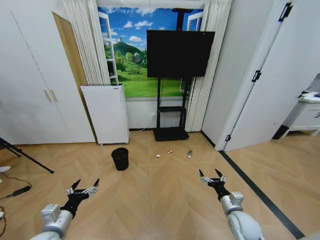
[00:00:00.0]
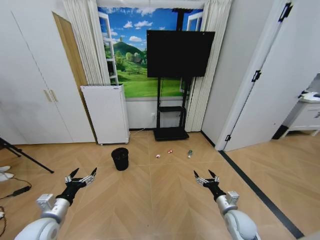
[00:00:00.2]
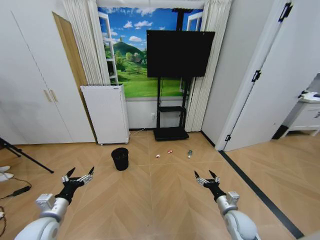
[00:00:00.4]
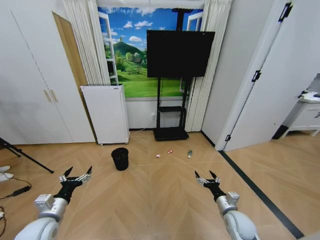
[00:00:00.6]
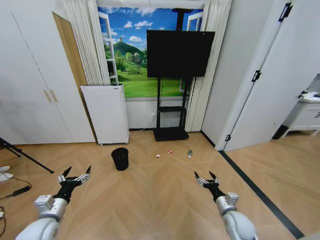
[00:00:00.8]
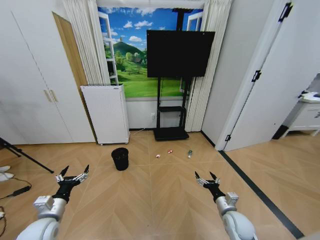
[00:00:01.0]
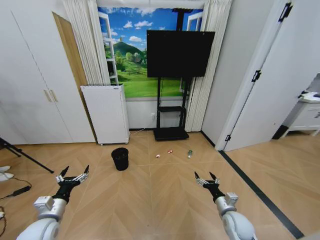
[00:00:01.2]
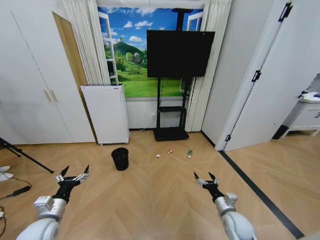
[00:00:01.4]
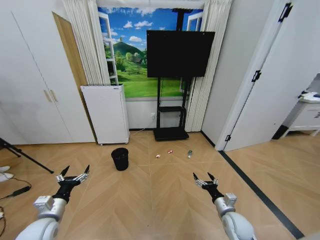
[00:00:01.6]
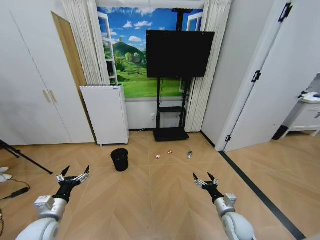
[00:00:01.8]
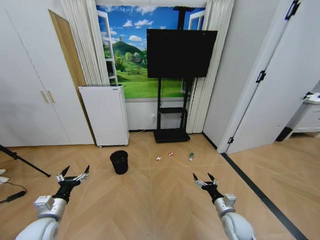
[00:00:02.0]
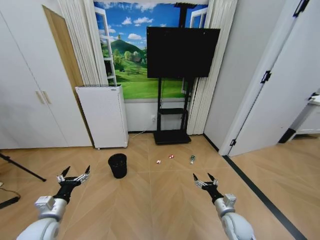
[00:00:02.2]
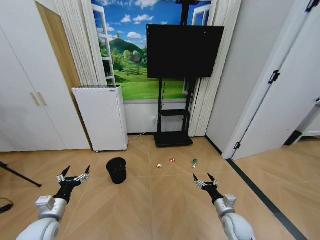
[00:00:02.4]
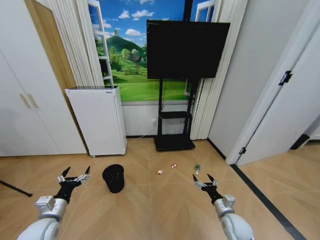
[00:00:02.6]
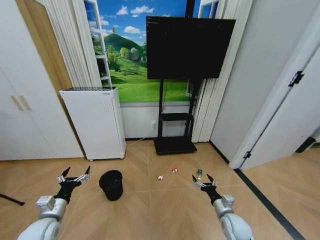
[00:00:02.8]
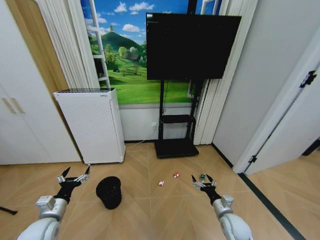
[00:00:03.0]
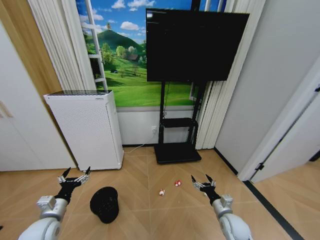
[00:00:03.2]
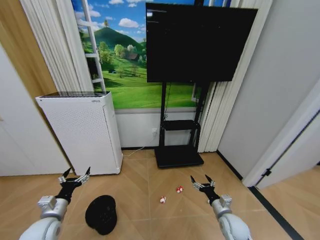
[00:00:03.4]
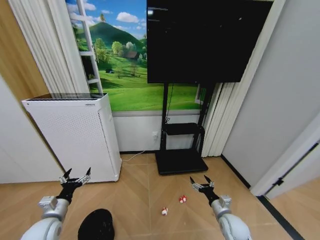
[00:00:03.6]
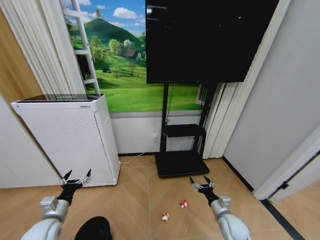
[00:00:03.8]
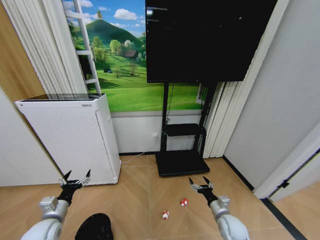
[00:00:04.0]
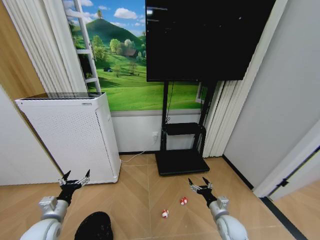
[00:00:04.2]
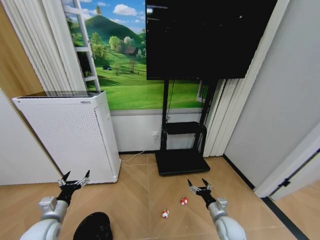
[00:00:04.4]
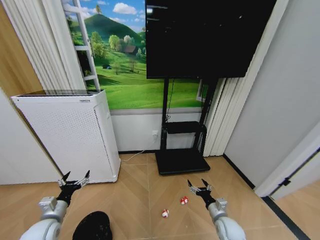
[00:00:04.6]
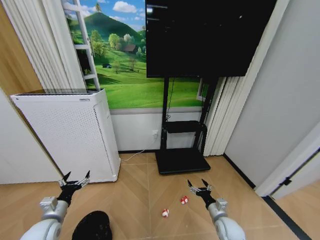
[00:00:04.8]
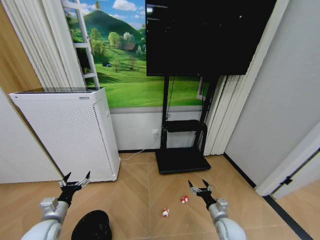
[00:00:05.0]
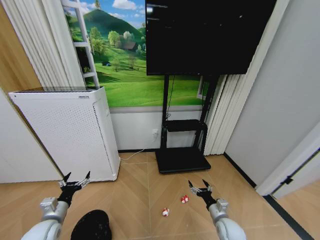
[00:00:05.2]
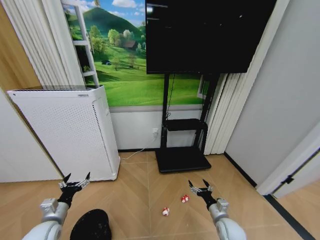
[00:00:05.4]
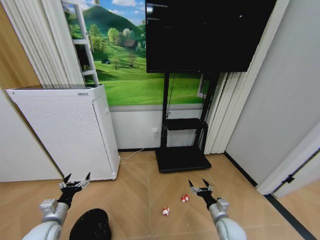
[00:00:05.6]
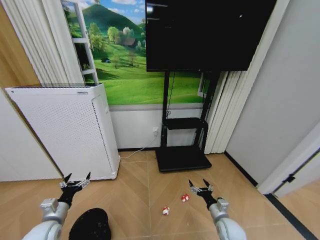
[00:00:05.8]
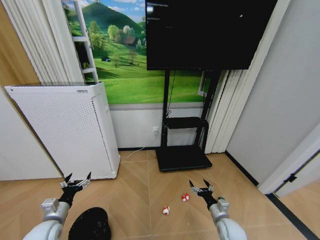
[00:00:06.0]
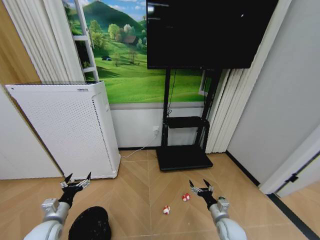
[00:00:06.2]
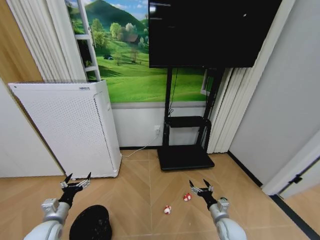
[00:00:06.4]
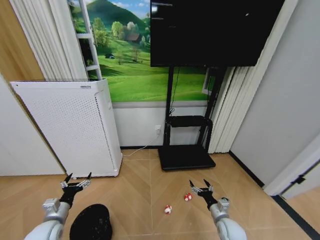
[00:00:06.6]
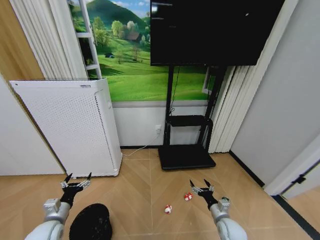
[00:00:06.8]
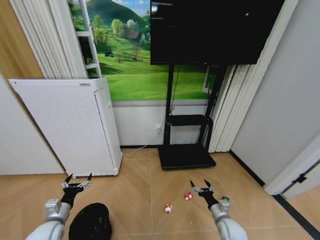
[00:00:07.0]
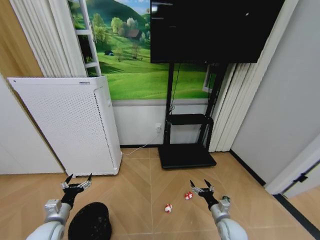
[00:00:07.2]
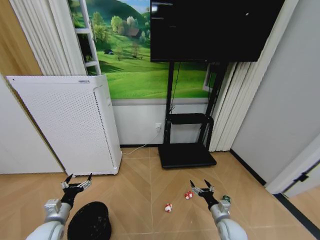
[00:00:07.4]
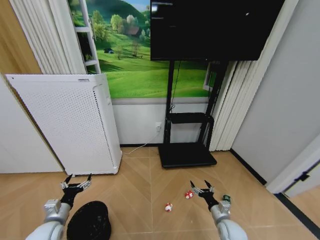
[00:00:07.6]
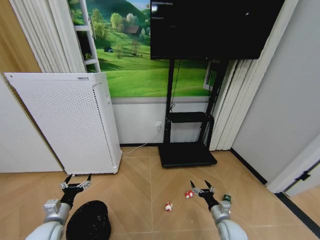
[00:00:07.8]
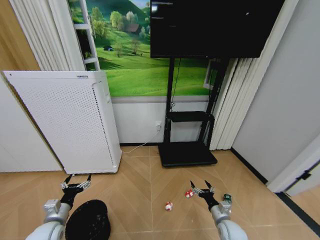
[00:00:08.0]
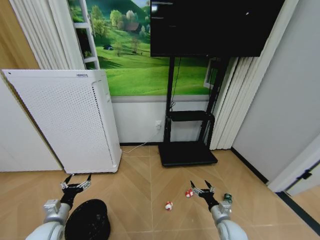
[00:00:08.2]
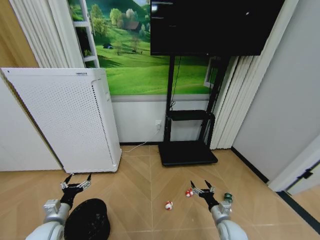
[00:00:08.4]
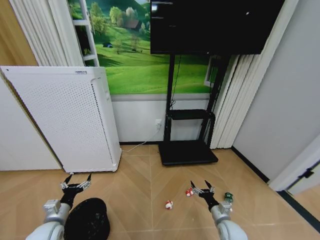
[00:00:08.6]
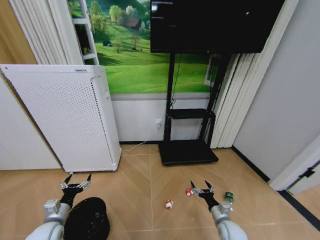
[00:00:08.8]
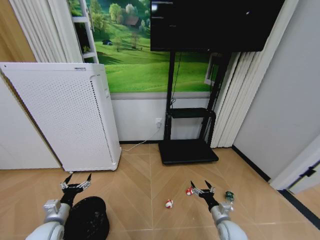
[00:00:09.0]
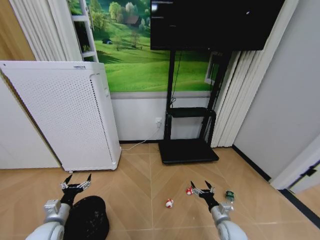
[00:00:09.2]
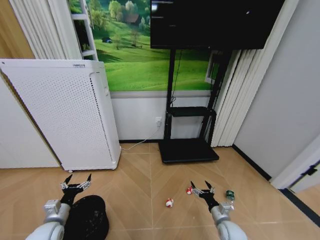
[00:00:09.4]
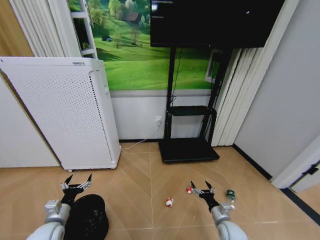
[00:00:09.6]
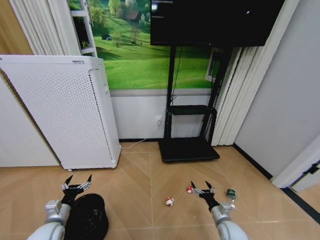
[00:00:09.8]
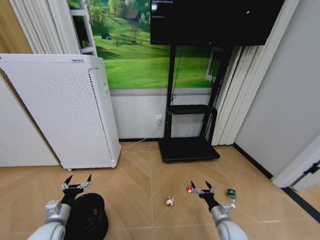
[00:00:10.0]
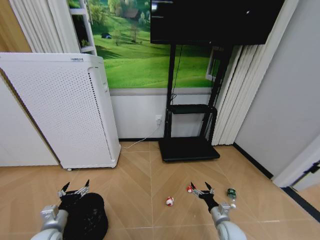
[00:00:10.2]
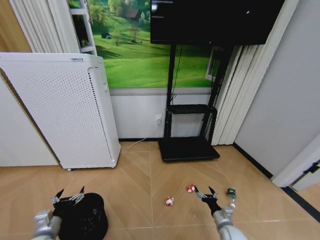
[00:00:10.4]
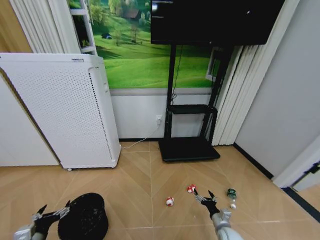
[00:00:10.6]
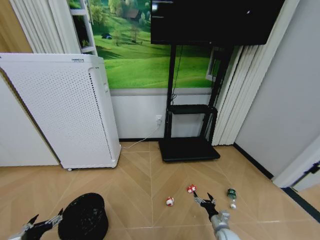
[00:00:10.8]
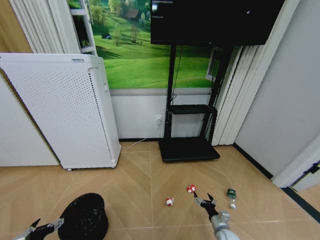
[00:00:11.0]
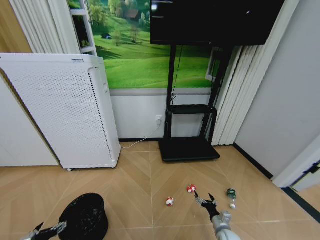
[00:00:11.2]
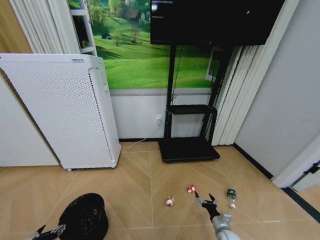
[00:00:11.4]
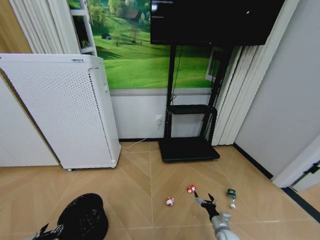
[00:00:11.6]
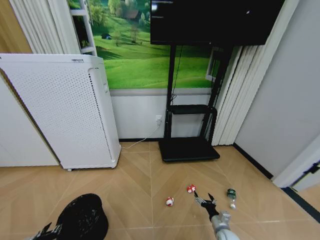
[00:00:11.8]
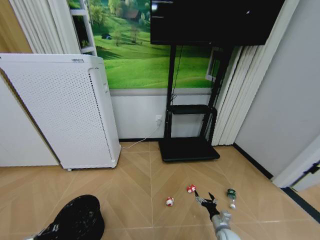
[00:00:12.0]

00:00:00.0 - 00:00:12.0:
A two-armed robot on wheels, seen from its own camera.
Task of the whole recording: Pick up the trash bin and place the garbage on the floor into it.
00:00:04.4 - 00:00:06.0: Neither gripper changes place.
00:00:07.6 - 00:00:09.0: The two grippers keep their place.
00:00:09.0 - 00:00:10.4: There are only small adjustments of the grippers.
00:00:10.4 - 00:00:12.0: The left gripper goes approximately 10 cm downward and backward, and closes.

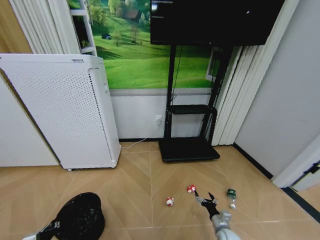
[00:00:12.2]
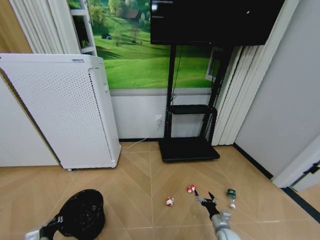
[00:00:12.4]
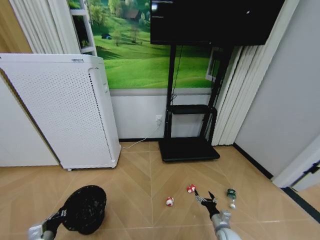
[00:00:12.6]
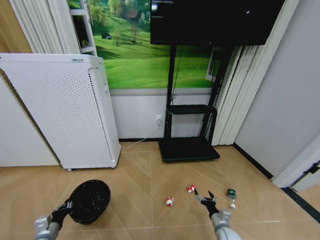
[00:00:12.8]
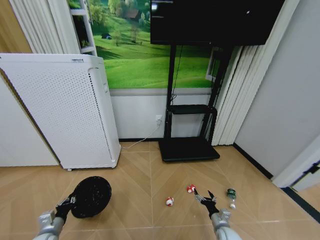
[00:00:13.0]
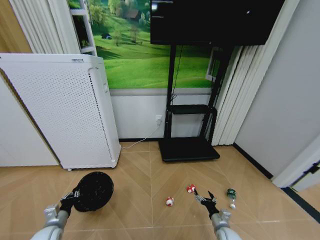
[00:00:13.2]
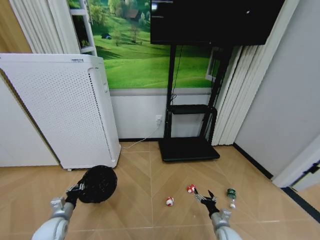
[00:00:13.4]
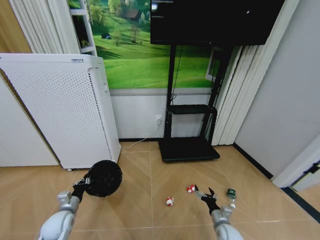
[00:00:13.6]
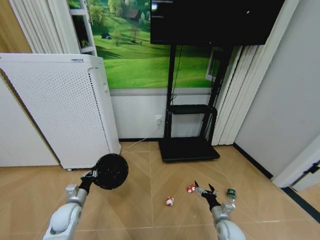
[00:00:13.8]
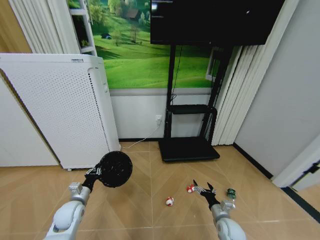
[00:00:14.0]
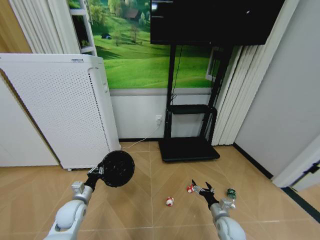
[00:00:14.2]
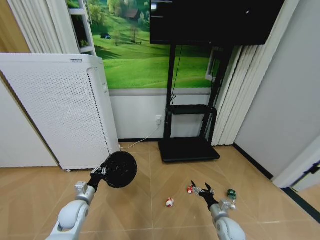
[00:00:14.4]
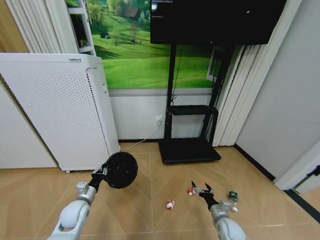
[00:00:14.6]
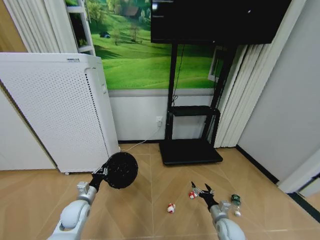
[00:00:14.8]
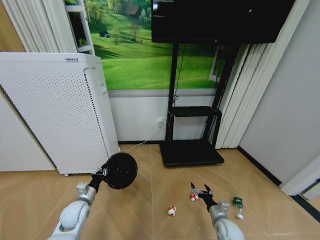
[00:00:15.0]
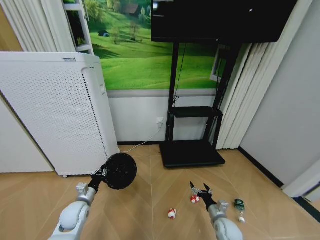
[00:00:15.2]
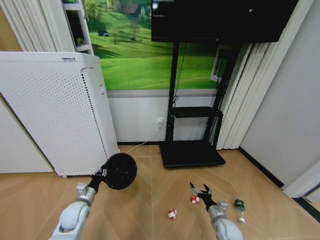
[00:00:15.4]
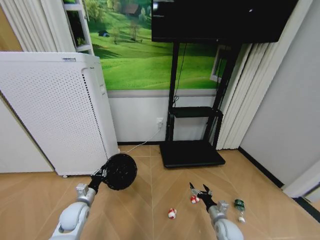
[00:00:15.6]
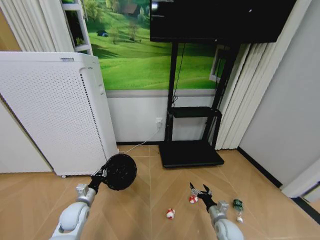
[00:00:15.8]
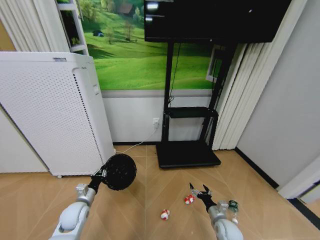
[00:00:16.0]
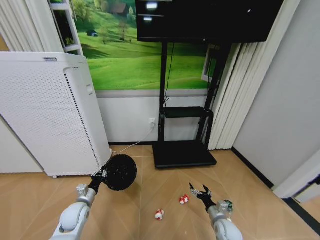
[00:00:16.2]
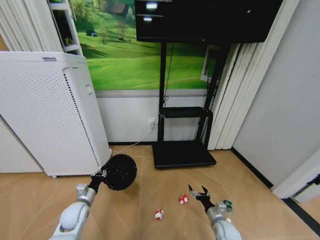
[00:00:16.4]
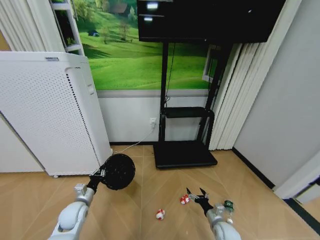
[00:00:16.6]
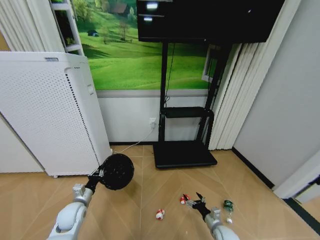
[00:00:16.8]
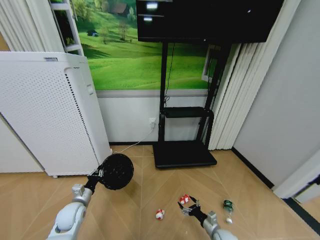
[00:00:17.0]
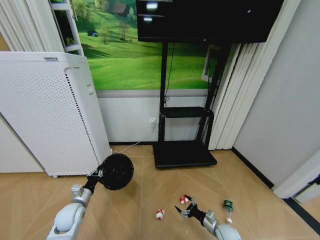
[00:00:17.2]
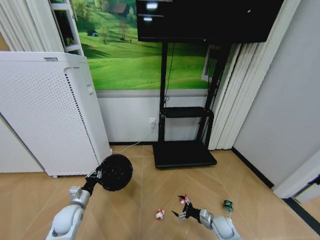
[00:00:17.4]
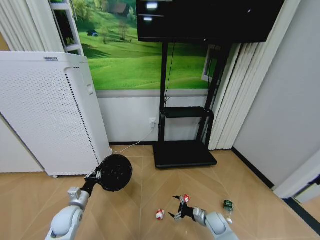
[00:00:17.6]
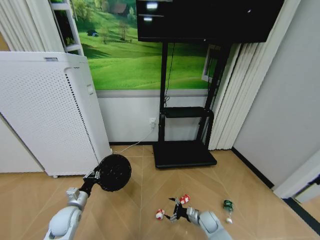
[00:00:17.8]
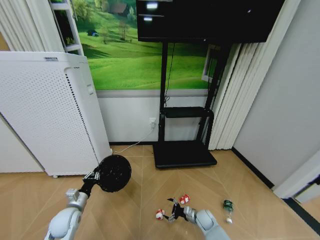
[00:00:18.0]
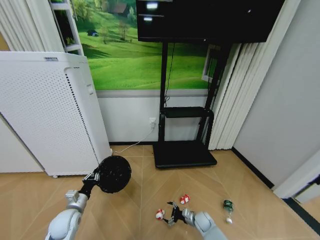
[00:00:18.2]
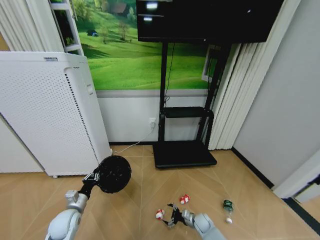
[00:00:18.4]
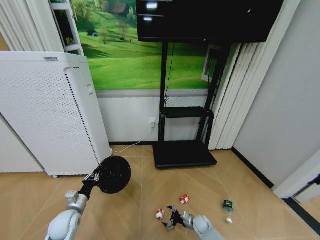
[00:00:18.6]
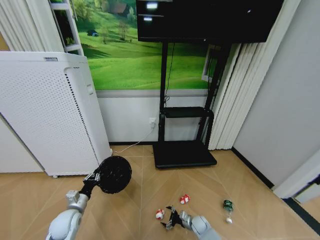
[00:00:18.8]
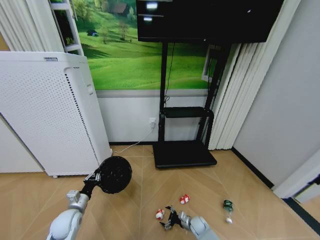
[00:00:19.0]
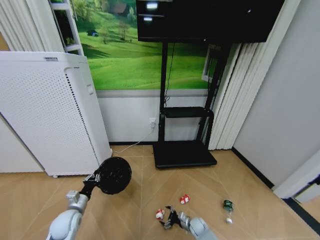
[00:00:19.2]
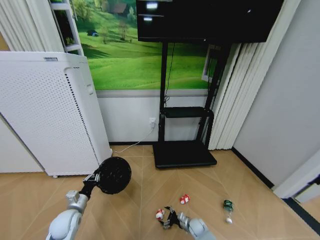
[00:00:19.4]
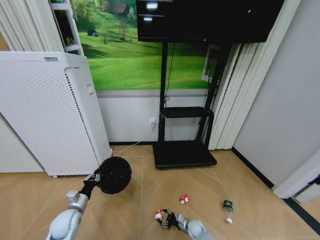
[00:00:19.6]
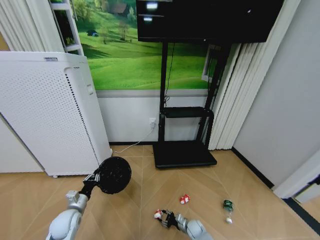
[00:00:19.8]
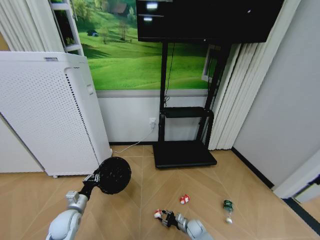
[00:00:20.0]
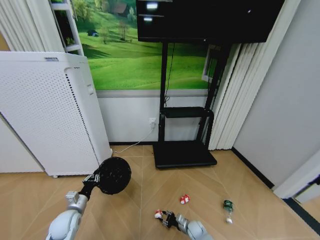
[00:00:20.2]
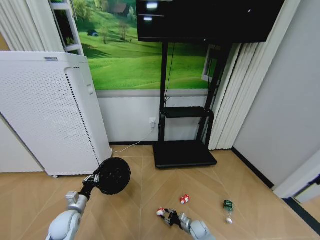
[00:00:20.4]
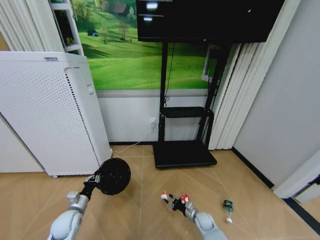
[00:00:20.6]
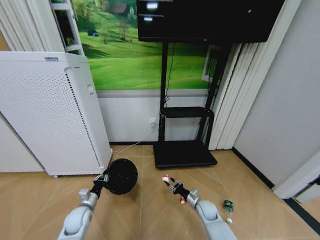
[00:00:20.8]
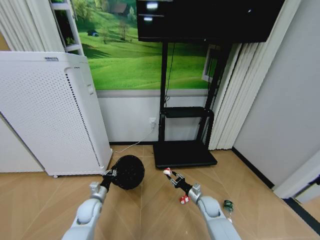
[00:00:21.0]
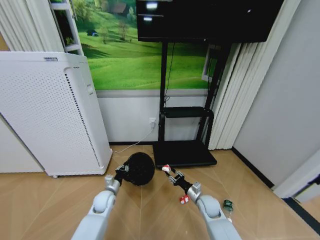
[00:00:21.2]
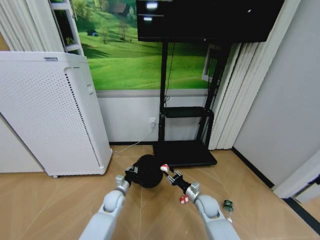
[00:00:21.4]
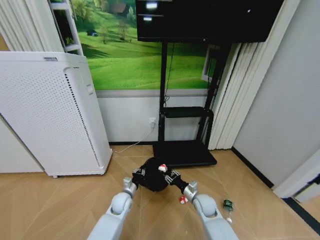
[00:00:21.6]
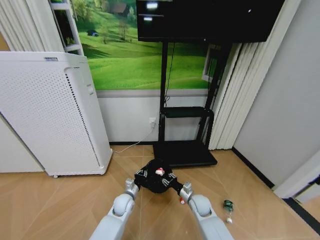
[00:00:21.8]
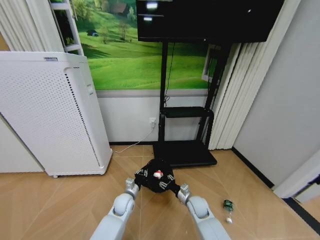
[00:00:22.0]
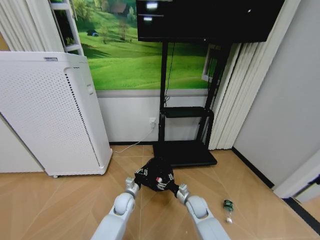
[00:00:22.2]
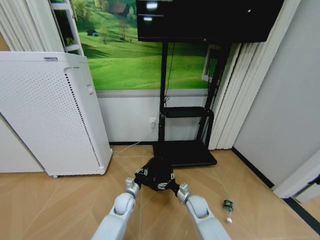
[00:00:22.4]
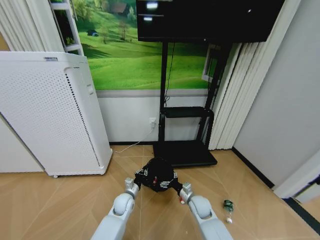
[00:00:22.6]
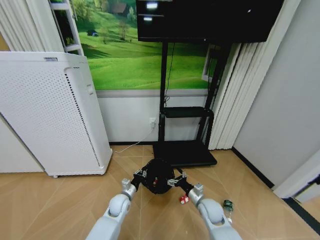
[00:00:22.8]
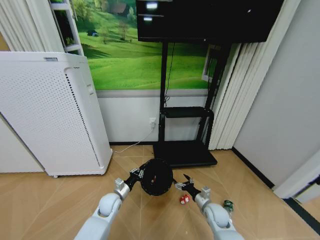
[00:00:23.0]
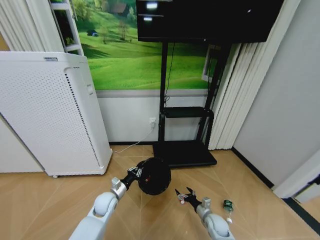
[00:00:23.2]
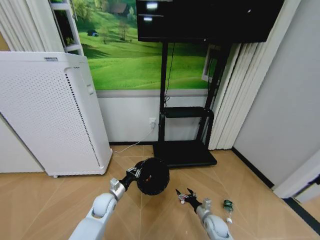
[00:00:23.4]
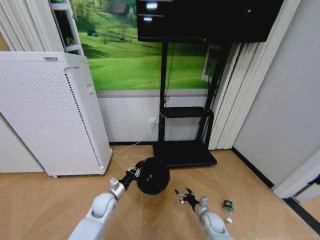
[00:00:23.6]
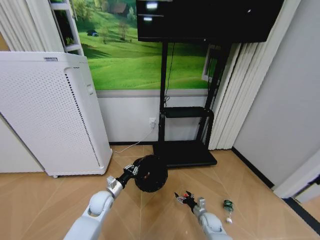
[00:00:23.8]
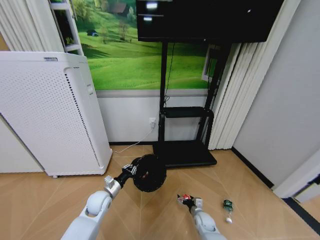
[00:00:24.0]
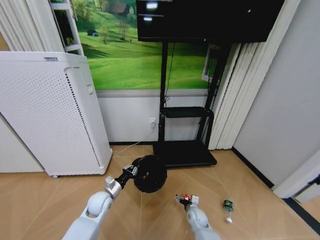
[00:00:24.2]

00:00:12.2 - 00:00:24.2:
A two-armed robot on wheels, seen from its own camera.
Task of the whole recording: Pick up the trash bin and place the garbage on the floor into it.
00:00:12.2 - 00:00:13.8: The left gripper goes about 15 cm forward and to the right. Meanwhile the right gripper moves roughly 5 cm.
00:00:16.6 - 00:00:18.2: The right gripper is displaced downward and forward by approximately 10 cm.
00:00:18.2 - 00:00:19.8: The right gripper moves downward, about 5 cm, and closes.
00:00:19.8 - 00:00:21.2: The right gripper heads upward, covering about 20 cm, while the left gripper travels to the right and forward by some 15 cm.
00:00:21.2 - 00:00:22.6: The right gripper opens up. Meanwhile the left gripper goes some 10 cm to the right.
00:00:22.6 - 00:00:24.2: The left gripper heads to the left and upward, covering some 10 cm; the right gripper is displaced downward by about 10 cm.
